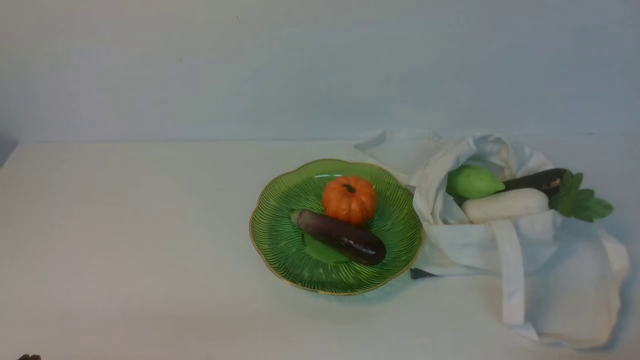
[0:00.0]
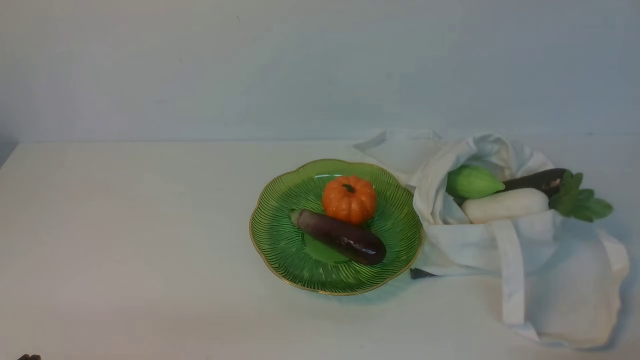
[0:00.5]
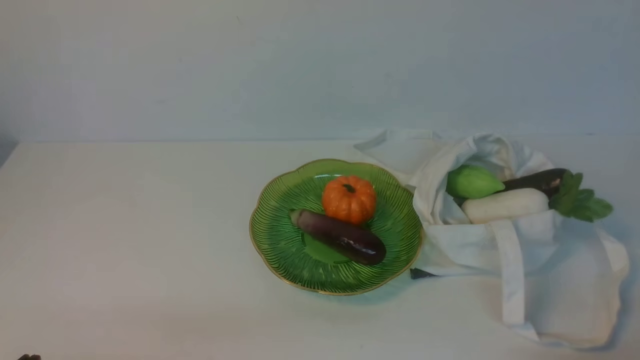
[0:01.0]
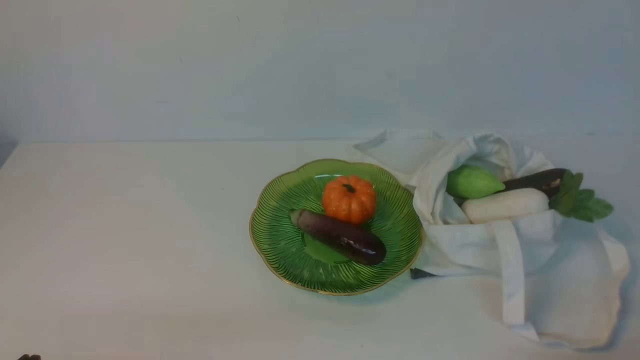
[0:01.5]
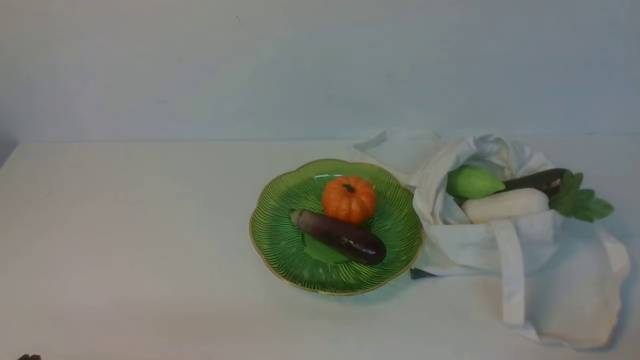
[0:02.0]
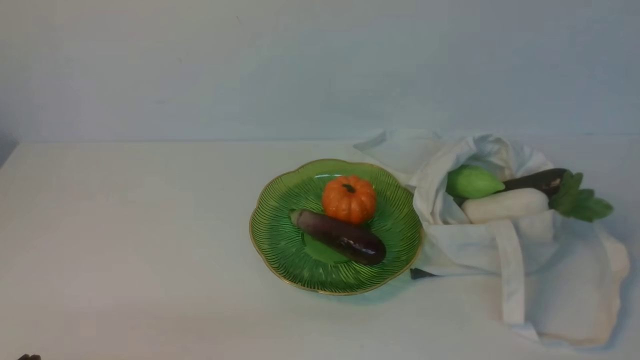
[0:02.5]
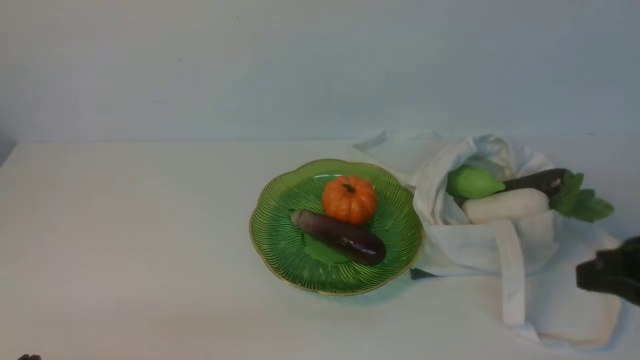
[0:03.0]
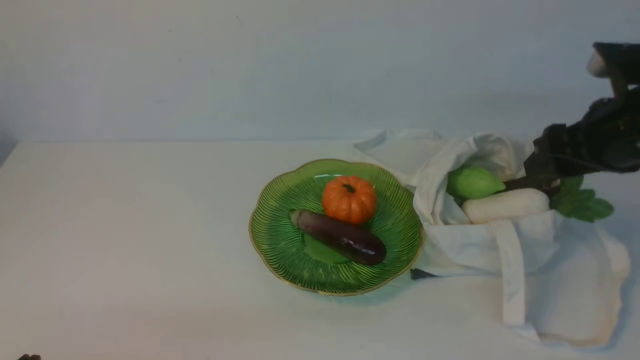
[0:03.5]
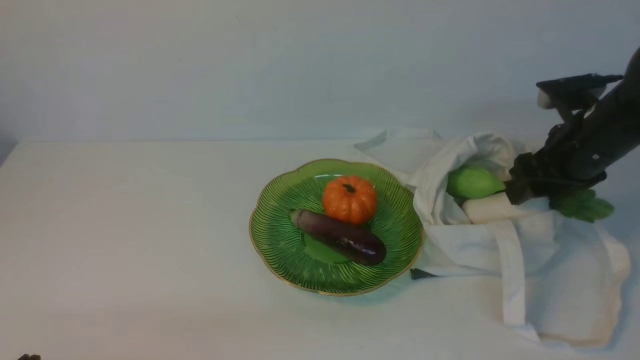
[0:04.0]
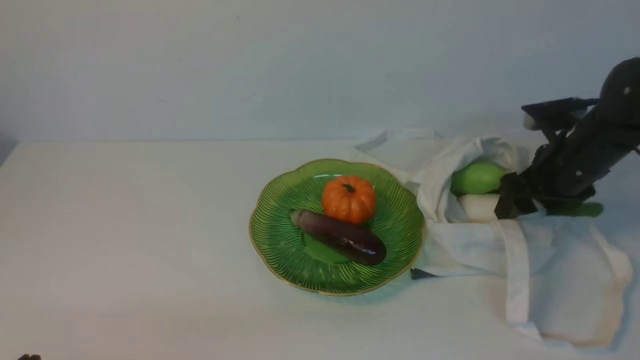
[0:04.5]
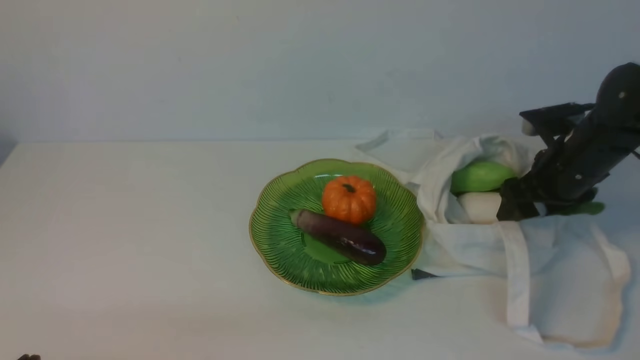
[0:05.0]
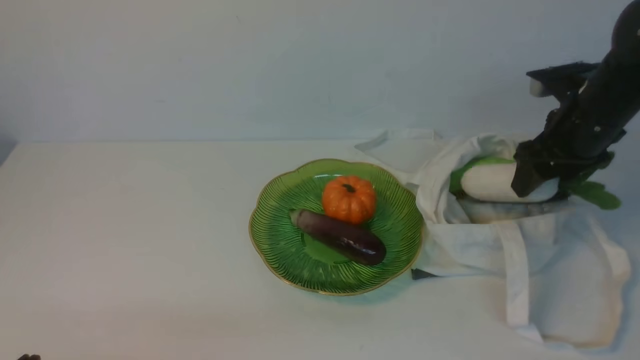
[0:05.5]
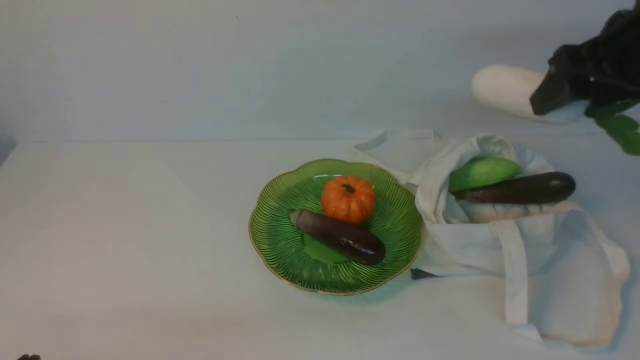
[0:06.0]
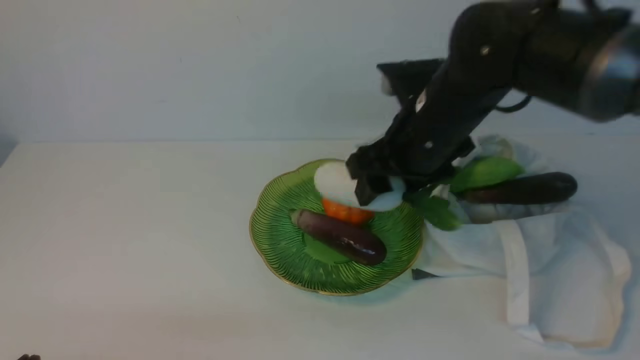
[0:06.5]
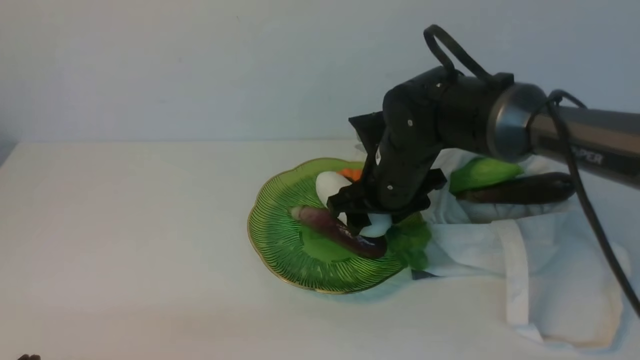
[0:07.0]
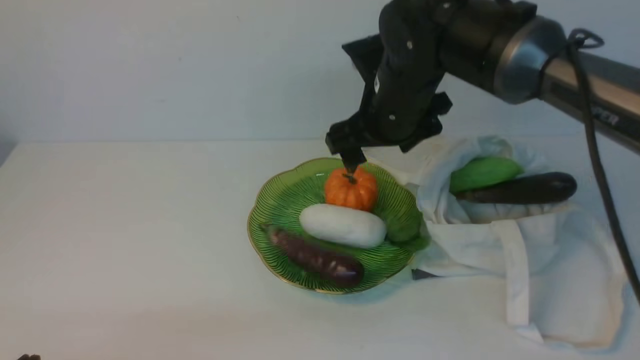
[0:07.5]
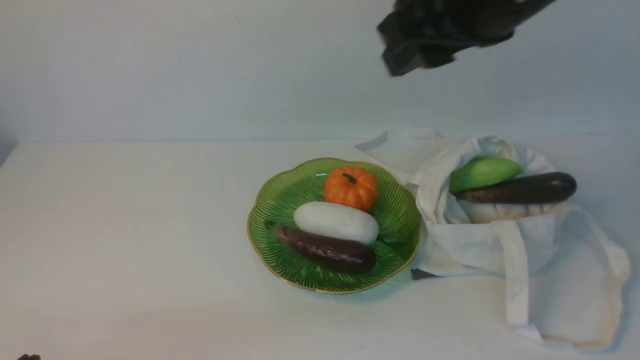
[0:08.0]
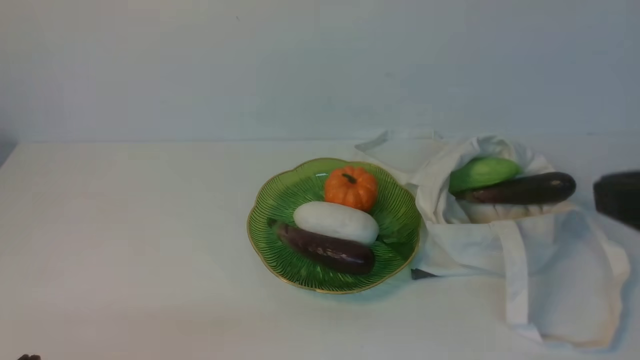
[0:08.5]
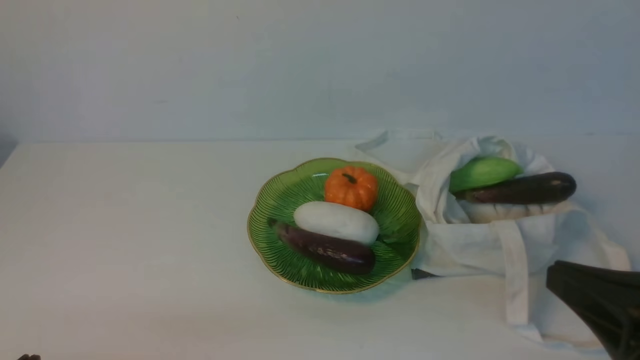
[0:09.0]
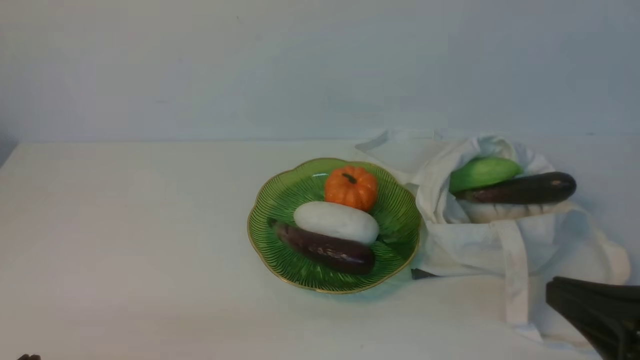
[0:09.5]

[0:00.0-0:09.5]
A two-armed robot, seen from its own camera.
Task of the whole recording: take vegetables from cloth bag on white table place on plate.
Step, 0:00.0 to 0:04.5: Grasp the radish with right gripper.
Step, 0:05.5 to 0:07.0: Place the radish on the plate with right gripper.
0:02.0 to 0:04.0: The right gripper heads forward, covering some 30 cm, and opens.
0:04.0 to 0:05.5: The grippers make only small movements.
0:05.5 to 0:07.5: The right gripper travels to the left by approximately 20 cm.
0:07.5 to 0:09.5: The right gripper travels backward and to the right by about 30 cm, and closes.

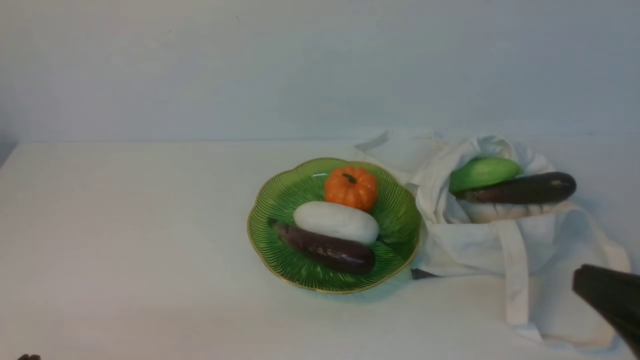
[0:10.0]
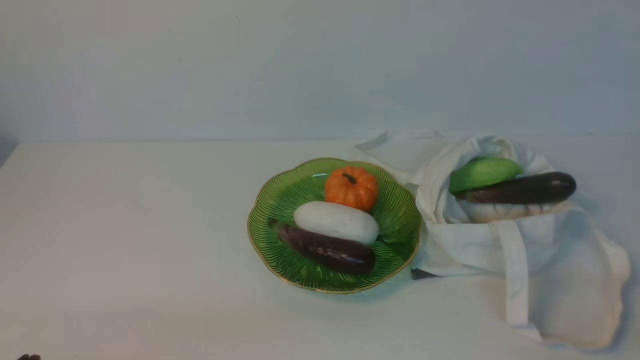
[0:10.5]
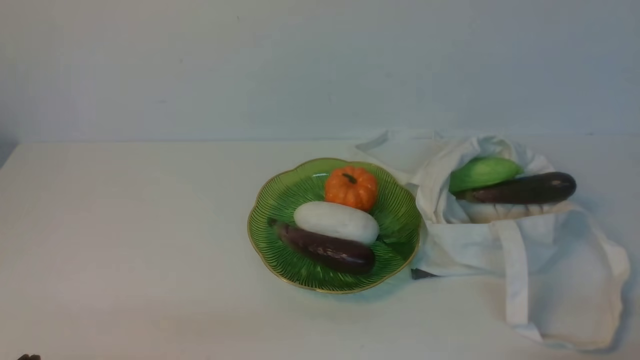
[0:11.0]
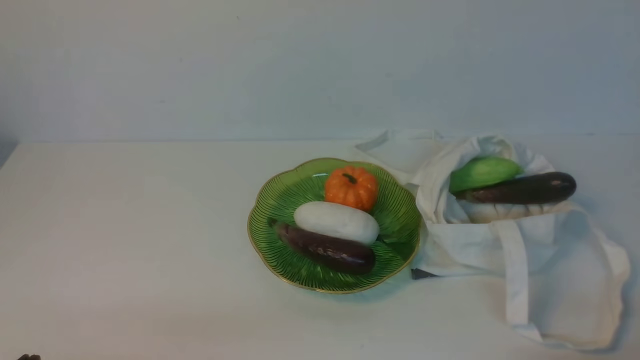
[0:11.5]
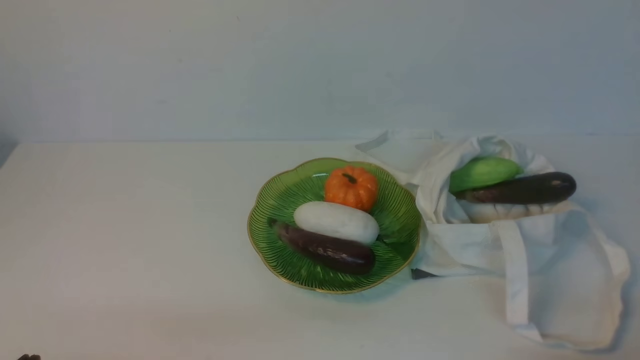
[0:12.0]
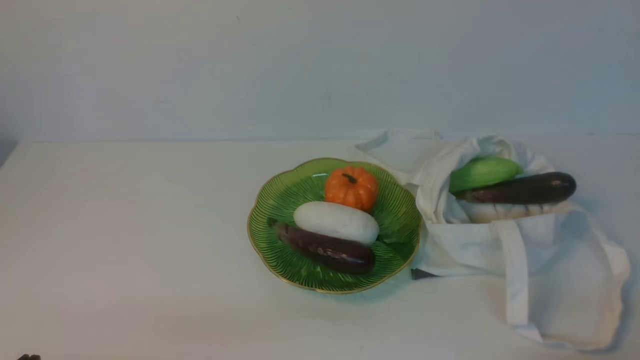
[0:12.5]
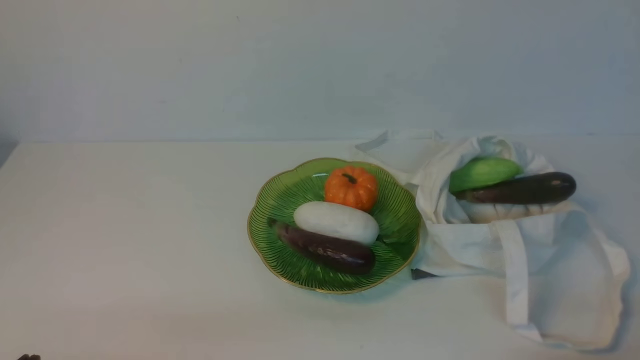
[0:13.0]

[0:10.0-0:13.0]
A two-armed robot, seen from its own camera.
Task of the whole recording: take vegetables from cloth bag on white table place on plate.
0:10.0 to 0:11.5: The right gripper heads downward, covering about 10 cm.
0:11.5 to 0:13.0: The two grippers keep their place.
